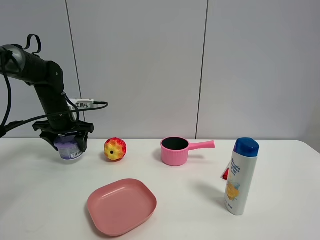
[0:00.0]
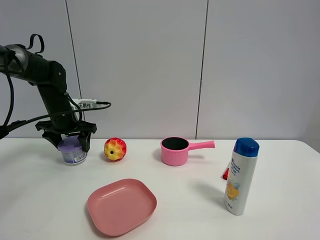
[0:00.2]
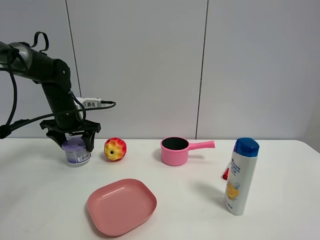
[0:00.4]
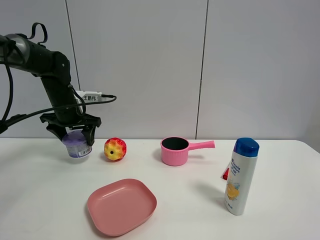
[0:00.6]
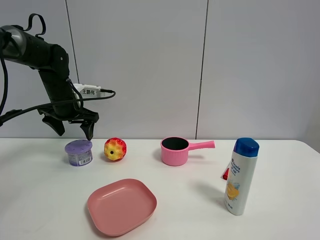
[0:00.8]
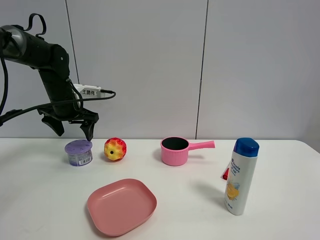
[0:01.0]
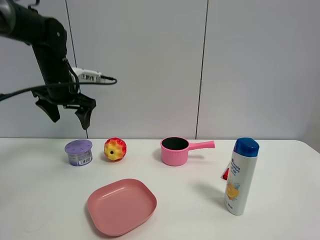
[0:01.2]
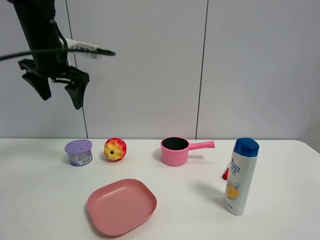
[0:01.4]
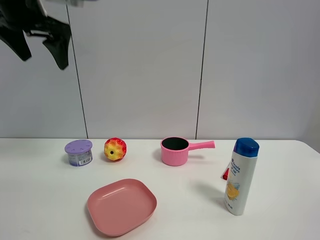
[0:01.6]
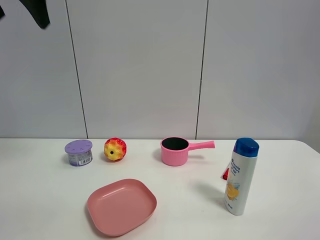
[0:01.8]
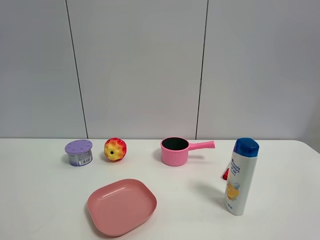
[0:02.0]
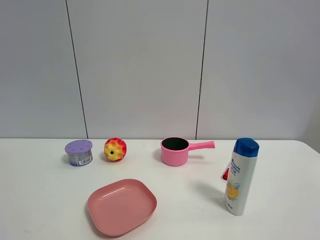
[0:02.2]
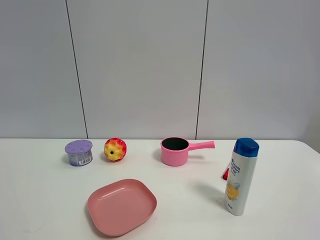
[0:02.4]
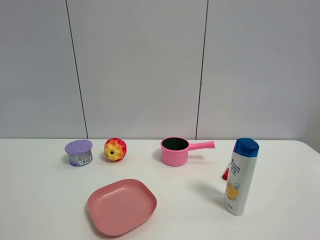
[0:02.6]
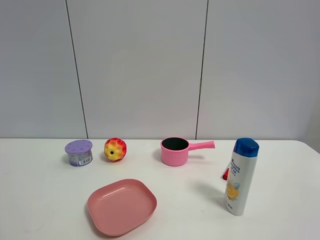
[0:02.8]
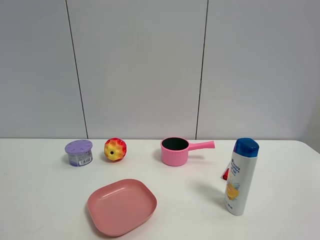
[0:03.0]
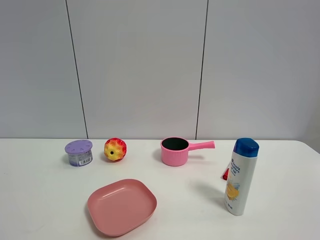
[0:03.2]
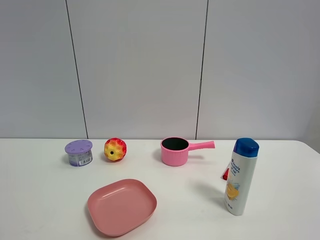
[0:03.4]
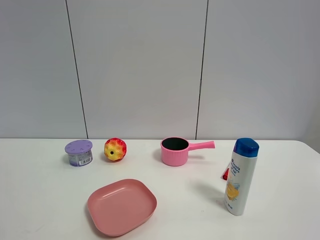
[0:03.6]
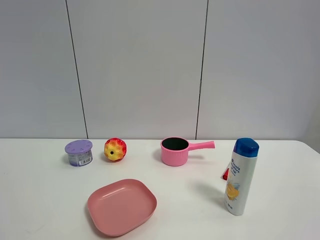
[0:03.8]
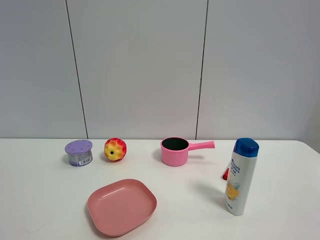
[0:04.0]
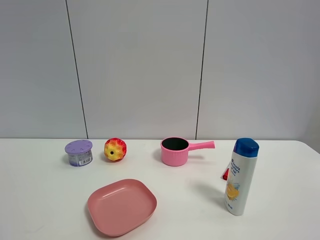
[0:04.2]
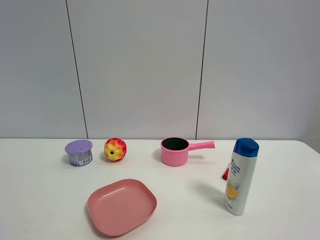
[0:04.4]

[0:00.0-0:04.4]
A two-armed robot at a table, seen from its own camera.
Task of the whole recording: the gripper move the object.
0:00.0 to 0:01.4: The left gripper moves upward, some 15 cm, and opens.
0:01.4 to 0:03.0: The left gripper is displaced backward by roughly 40 cm.

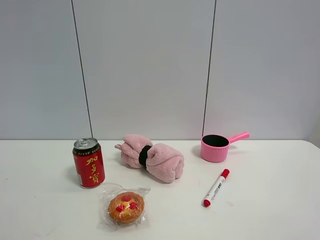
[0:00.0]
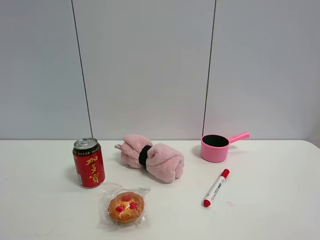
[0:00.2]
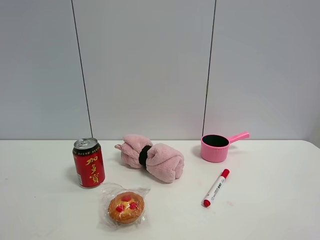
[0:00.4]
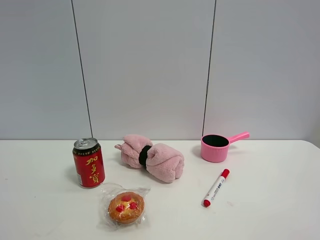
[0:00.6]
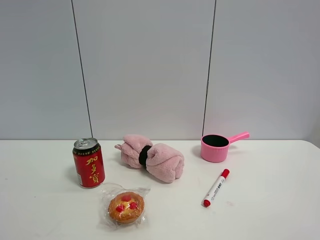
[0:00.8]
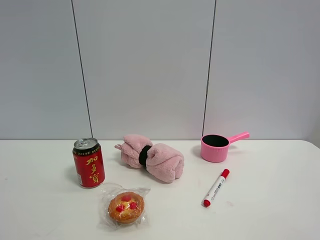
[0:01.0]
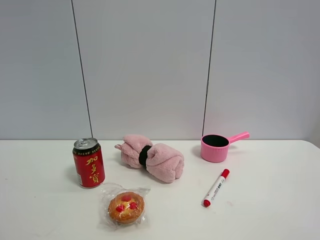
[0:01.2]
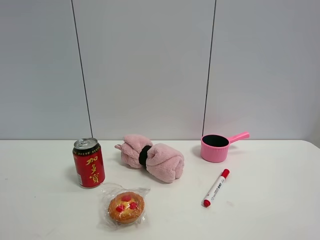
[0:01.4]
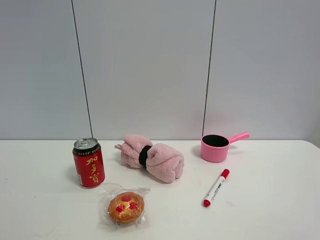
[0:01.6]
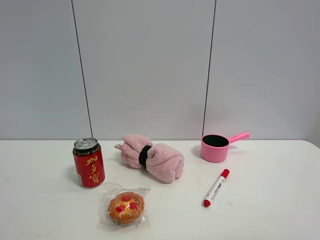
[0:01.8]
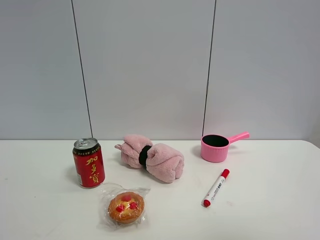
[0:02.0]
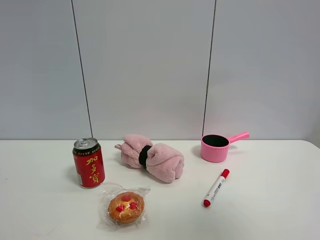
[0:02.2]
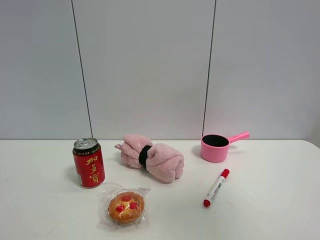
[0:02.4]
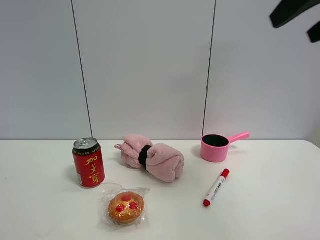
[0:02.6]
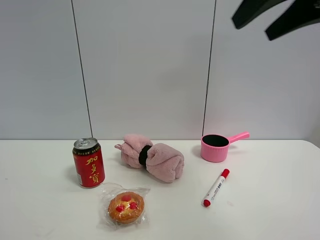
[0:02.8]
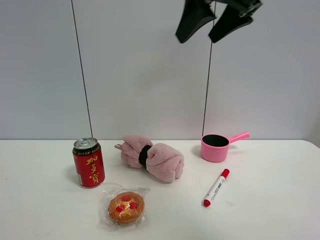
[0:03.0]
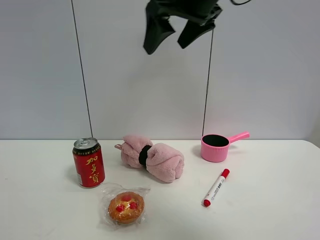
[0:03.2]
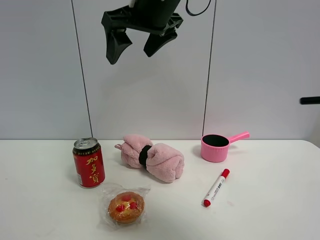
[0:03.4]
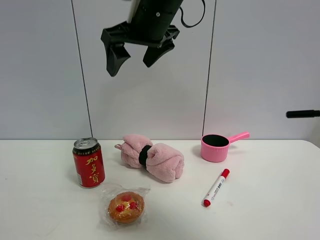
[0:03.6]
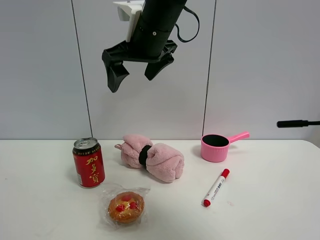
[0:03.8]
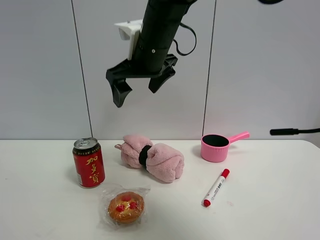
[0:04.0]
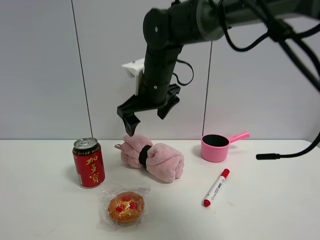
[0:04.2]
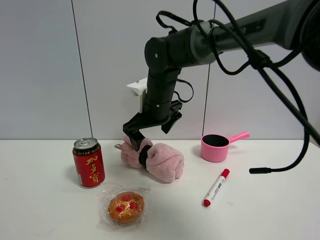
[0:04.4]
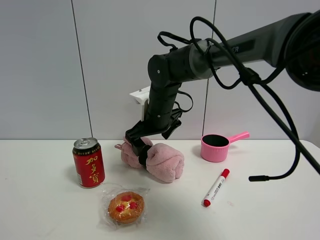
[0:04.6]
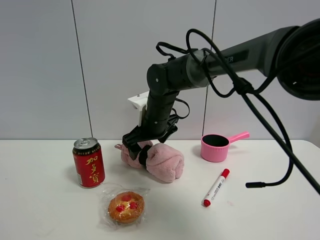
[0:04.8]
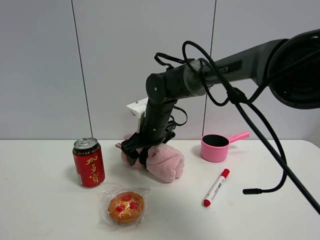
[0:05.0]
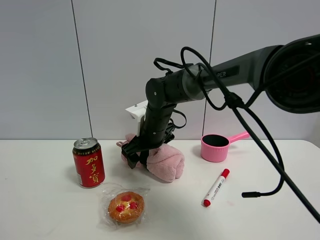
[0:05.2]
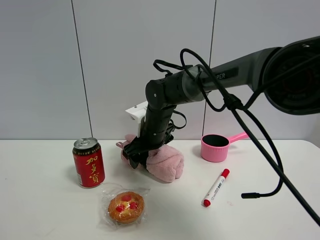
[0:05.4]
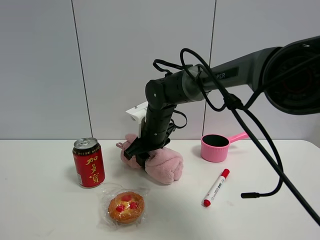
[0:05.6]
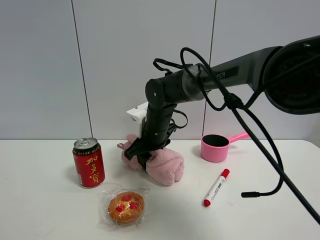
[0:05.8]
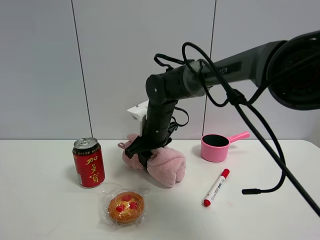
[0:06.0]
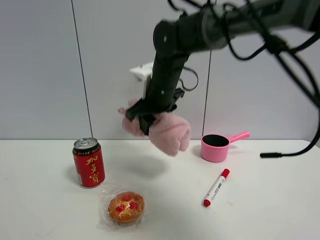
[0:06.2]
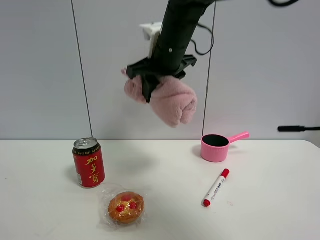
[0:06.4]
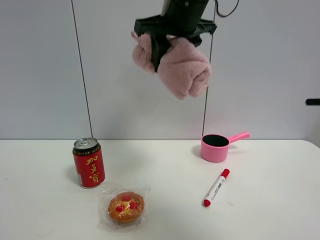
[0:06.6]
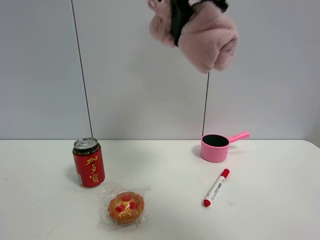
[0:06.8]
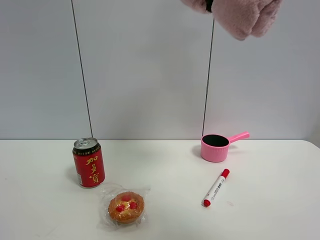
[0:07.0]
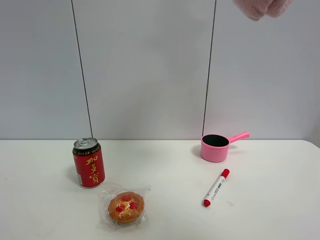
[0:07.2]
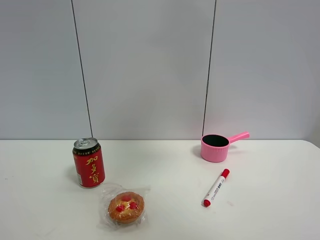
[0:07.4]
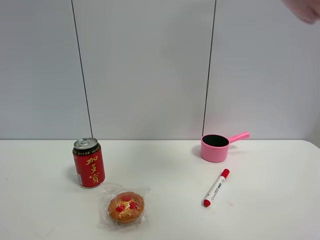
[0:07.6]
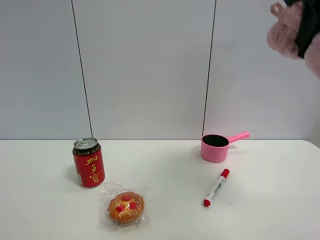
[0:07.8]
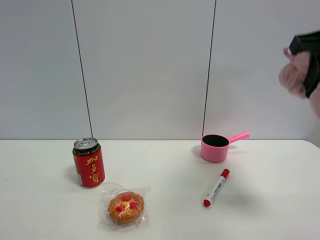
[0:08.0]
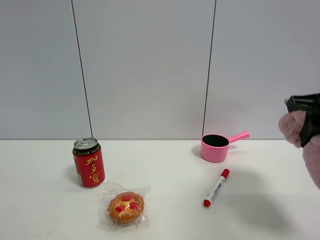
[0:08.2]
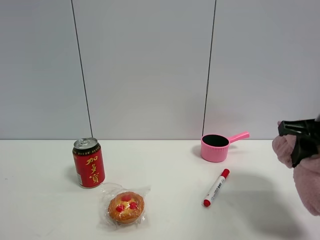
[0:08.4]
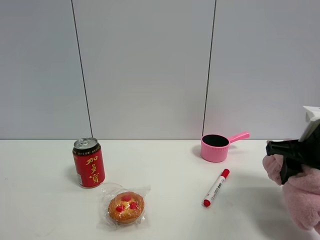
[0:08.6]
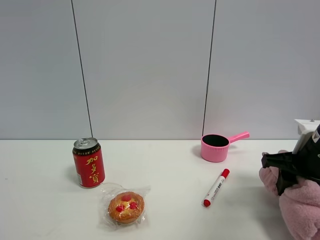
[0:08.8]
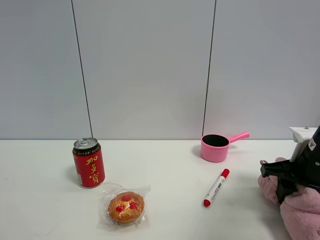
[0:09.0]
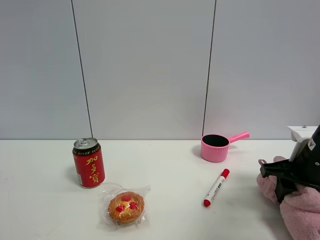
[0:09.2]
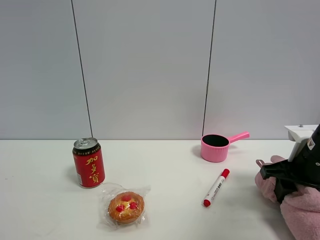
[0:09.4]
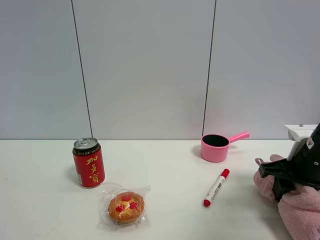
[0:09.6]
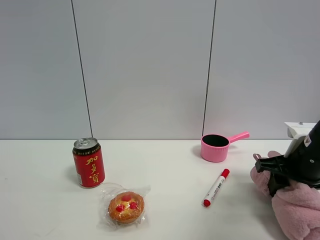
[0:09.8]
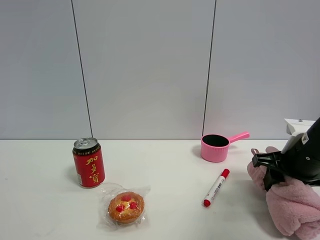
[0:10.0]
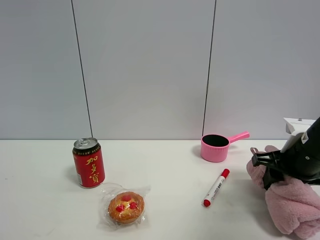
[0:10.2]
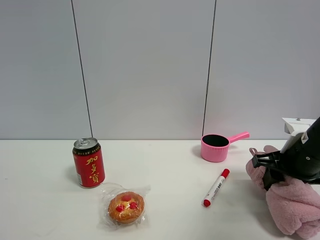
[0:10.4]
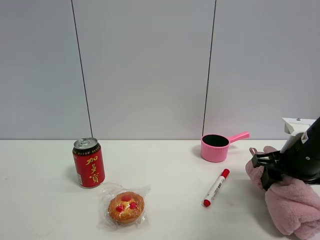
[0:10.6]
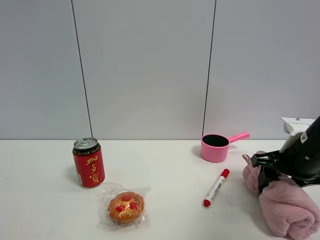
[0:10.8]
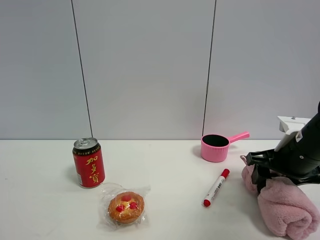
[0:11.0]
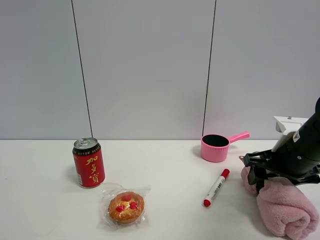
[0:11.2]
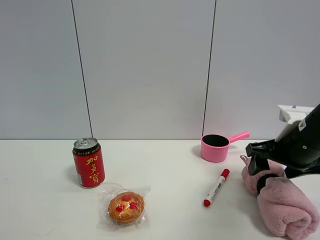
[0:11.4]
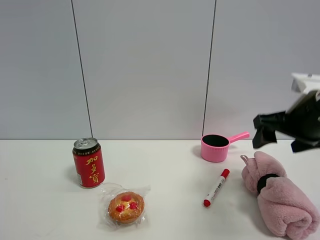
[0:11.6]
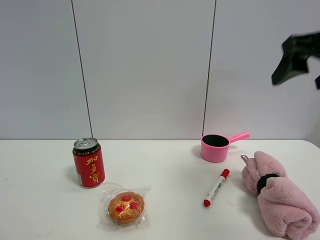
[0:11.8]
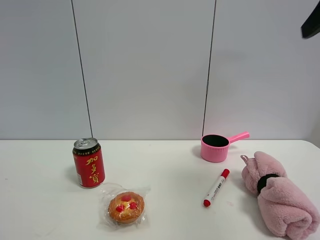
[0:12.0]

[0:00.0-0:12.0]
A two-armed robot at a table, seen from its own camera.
Task of the whole recording: the gripper move the object.
Step, 0:00.0 to 0:05.6: Grasp the pink towel with the right gripper.
Step, 0:05.8 to 0:11.6: Place the pink towel on the table with the right gripper.
0:01.6 to 0:03.0: The right gripper is displaced forward and to the left by some 35 cm.
0:03.0 to 0:04.4: The right gripper travels downward, to the left and forward by some 25 cm.
0:04.4 to 0:06.0: The right gripper shifts roughly 5 cm downward, and closes.
0:06.0 to 0:07.6: The right gripper is displaced upward, to the right and backward by about 40 cm.
0:07.6 to 0:09.0: The right gripper travels downward by approximately 35 cm.
0:09.0 to 0:10.4: There are only small adjustments of the grippers.
0:10.4 to 0:12.0: The right gripper shifts roughly 30 cm upward and backward, and opens.

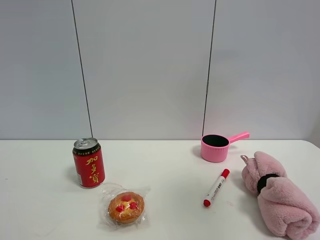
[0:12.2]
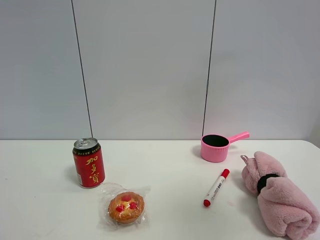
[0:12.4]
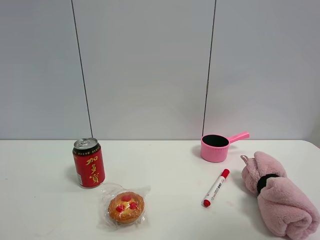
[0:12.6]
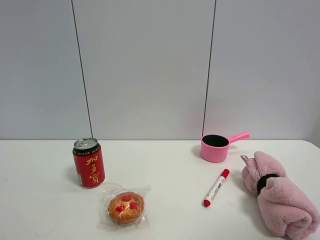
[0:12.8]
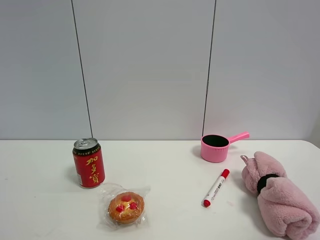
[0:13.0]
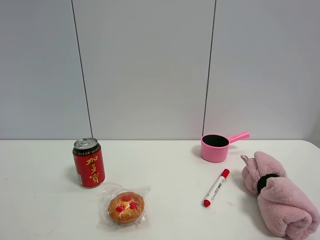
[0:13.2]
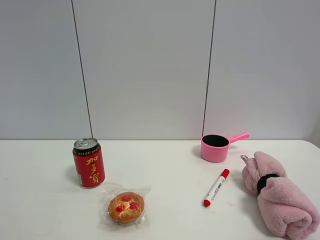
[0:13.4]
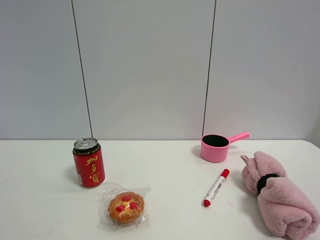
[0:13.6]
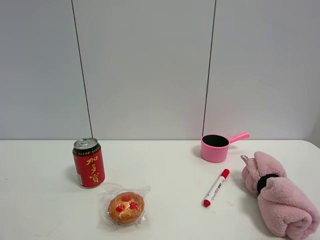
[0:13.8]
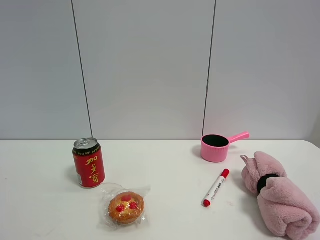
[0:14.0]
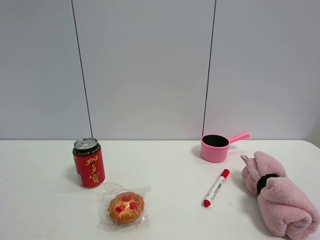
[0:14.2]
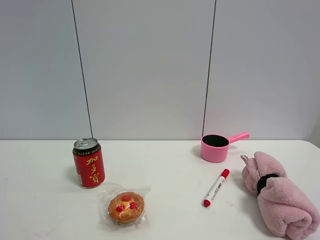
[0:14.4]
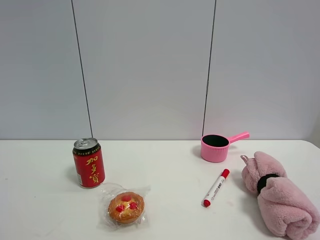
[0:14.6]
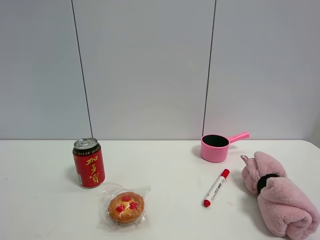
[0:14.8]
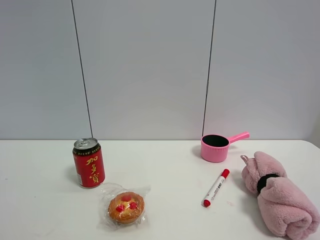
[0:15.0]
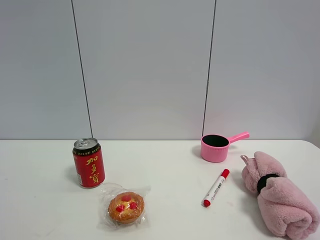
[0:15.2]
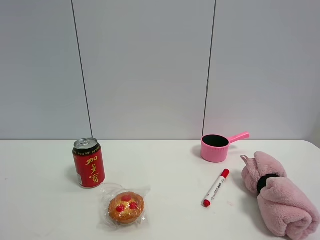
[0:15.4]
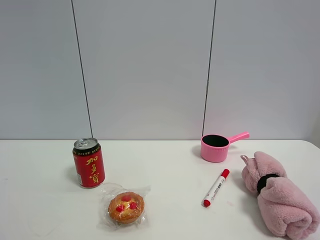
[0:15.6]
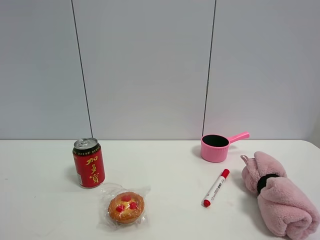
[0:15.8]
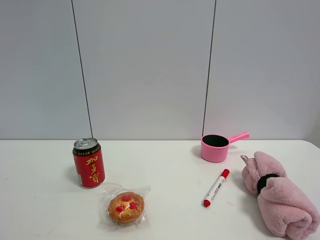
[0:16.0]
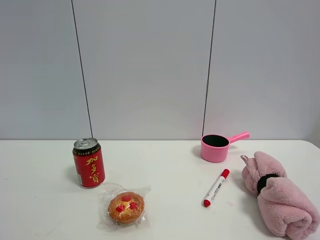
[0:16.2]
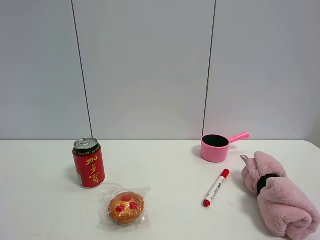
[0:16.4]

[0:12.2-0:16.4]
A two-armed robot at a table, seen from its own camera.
Task of the whole recording: the gripper move the object.
0:12.2 to 0:13.6: The right gripper moves downward and backward, roughly 20 cm.
0:15.0 to 0:16.4: The two grippers keep their place.

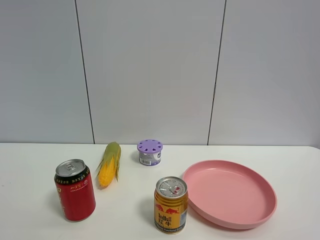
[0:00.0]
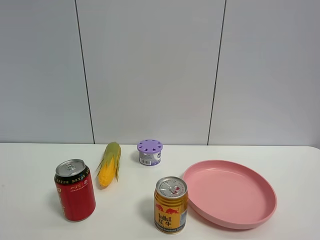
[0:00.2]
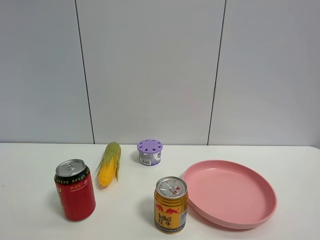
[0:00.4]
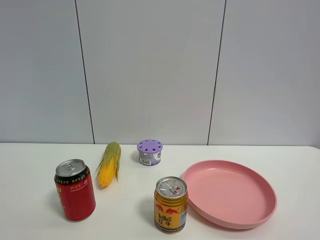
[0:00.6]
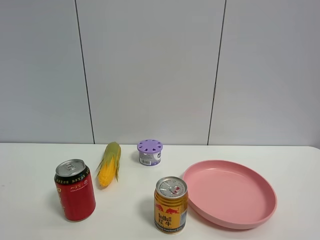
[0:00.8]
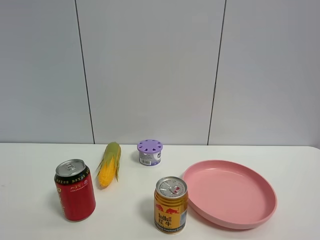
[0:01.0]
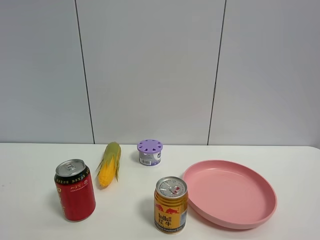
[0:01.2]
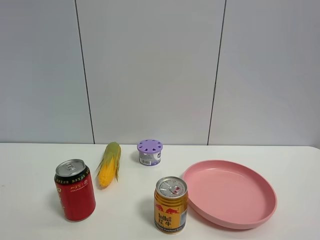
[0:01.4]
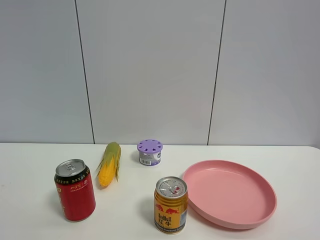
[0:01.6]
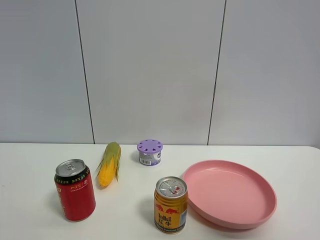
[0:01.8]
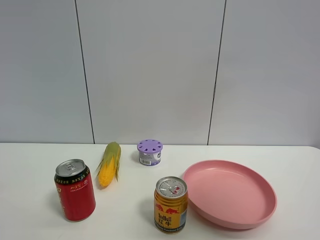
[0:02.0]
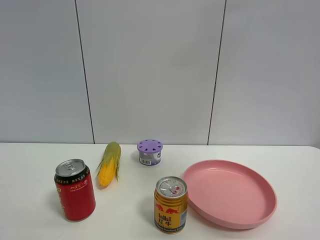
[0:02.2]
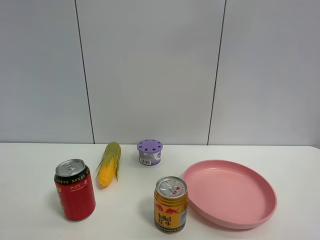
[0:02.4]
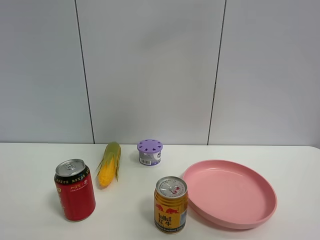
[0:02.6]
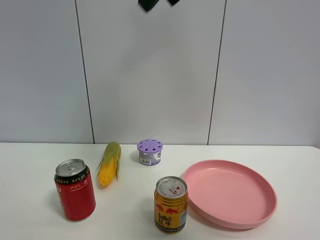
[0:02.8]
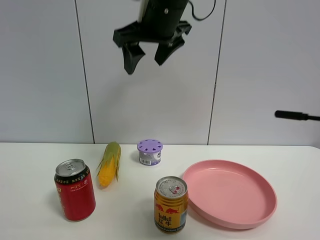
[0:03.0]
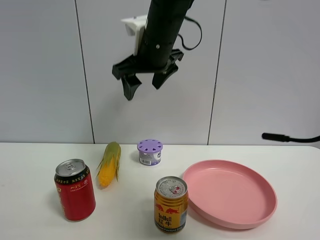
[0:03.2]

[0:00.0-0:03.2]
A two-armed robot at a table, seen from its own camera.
Task of the whole recording: the gripper move the object.
0:01.6 to 0:03.2: The right gripper moves forward and to the left, about 50 cm.
